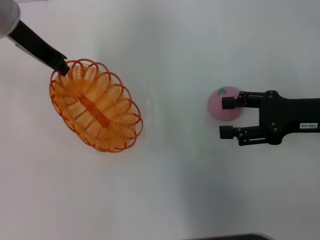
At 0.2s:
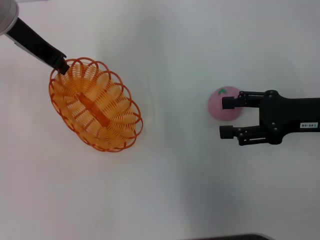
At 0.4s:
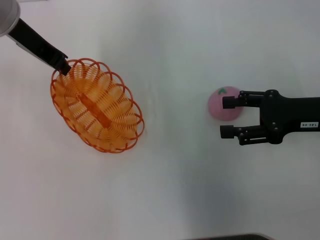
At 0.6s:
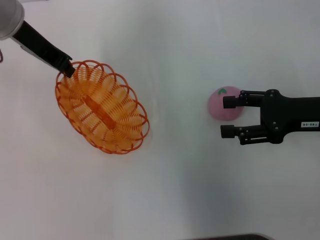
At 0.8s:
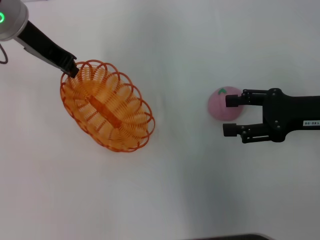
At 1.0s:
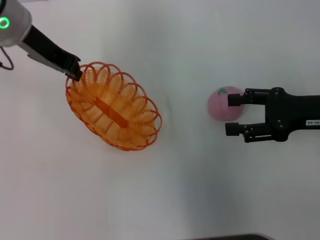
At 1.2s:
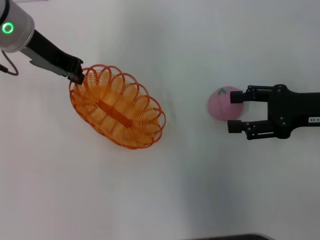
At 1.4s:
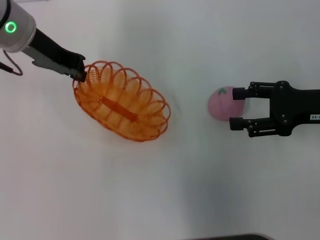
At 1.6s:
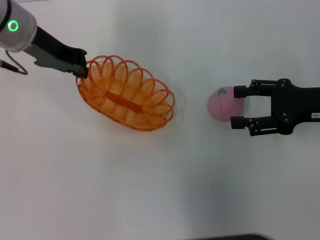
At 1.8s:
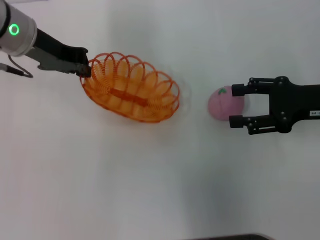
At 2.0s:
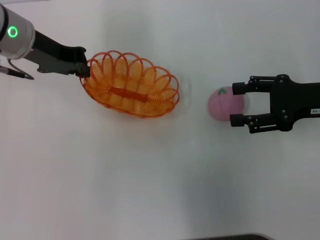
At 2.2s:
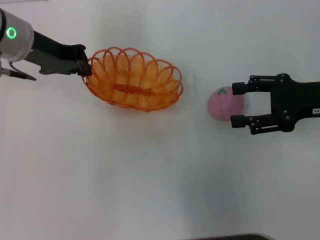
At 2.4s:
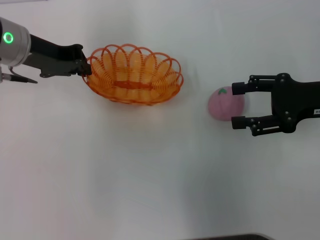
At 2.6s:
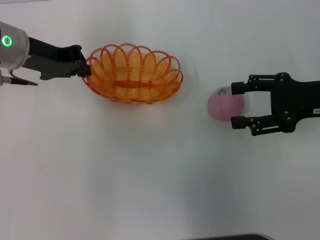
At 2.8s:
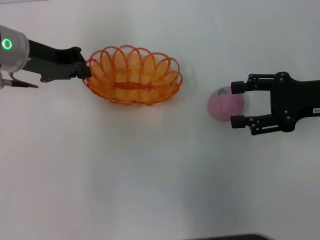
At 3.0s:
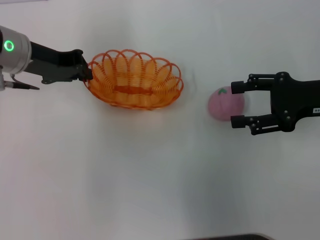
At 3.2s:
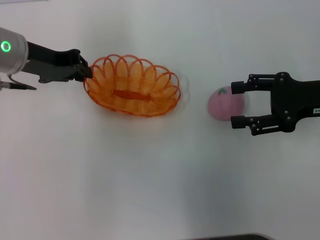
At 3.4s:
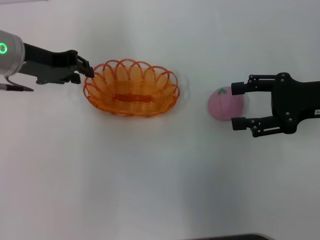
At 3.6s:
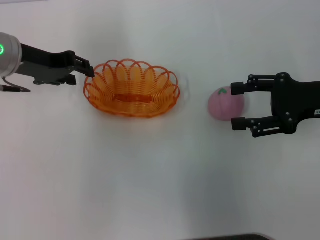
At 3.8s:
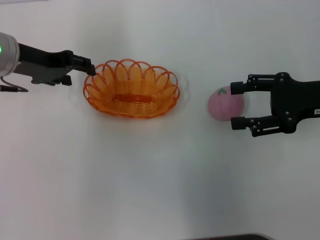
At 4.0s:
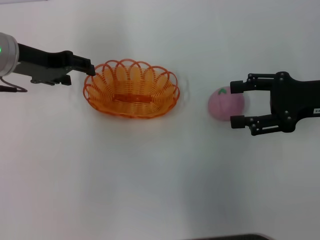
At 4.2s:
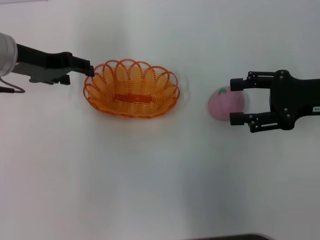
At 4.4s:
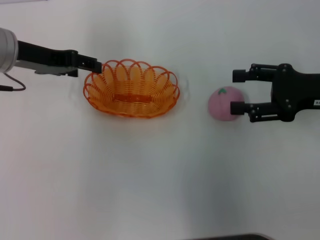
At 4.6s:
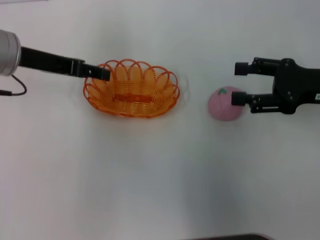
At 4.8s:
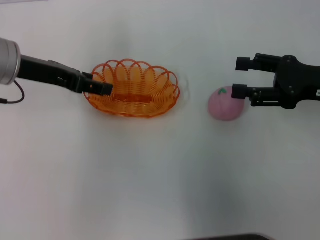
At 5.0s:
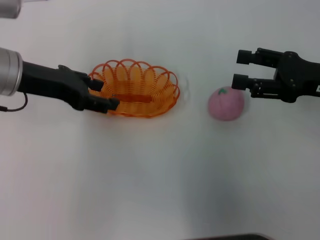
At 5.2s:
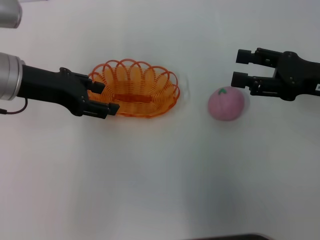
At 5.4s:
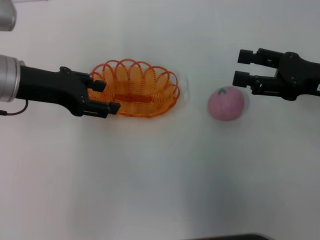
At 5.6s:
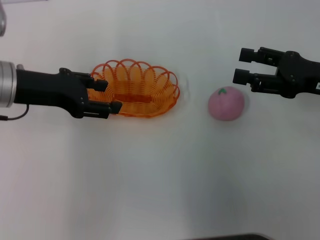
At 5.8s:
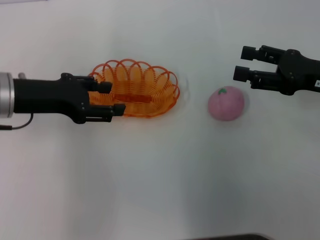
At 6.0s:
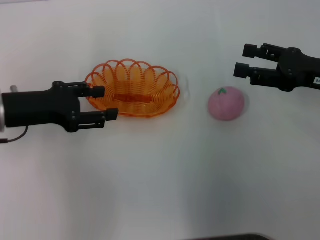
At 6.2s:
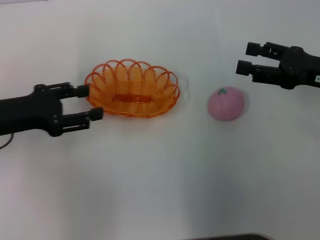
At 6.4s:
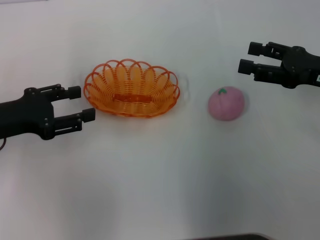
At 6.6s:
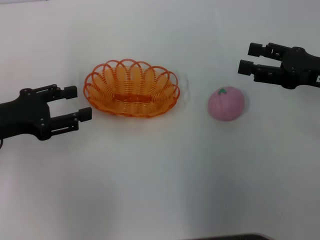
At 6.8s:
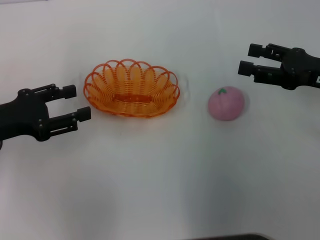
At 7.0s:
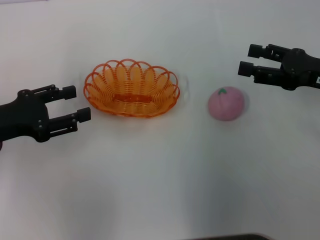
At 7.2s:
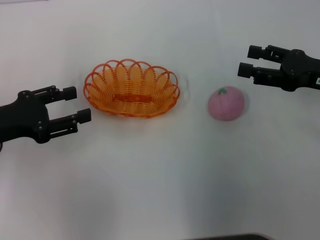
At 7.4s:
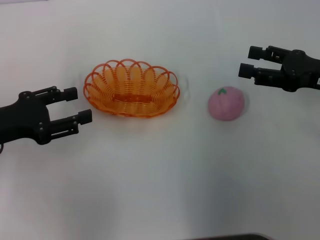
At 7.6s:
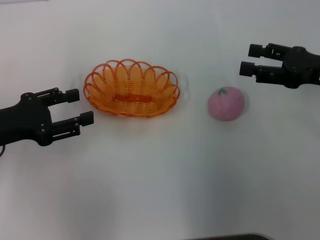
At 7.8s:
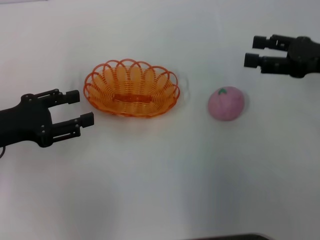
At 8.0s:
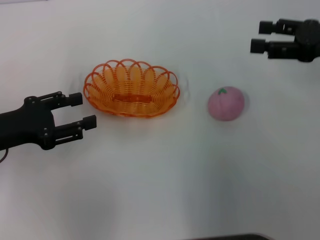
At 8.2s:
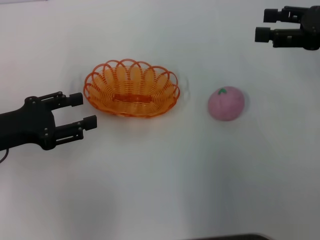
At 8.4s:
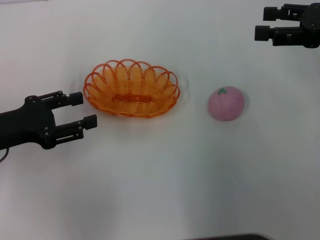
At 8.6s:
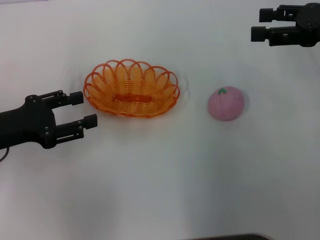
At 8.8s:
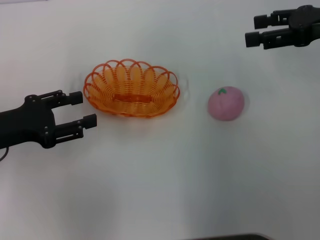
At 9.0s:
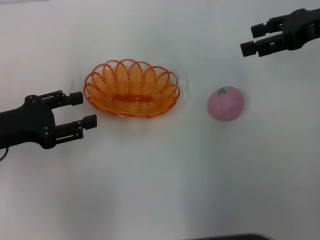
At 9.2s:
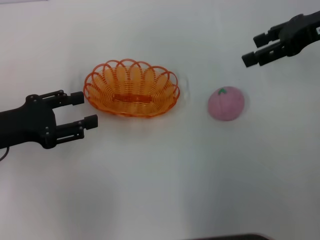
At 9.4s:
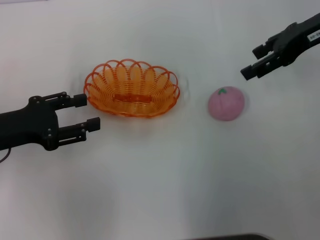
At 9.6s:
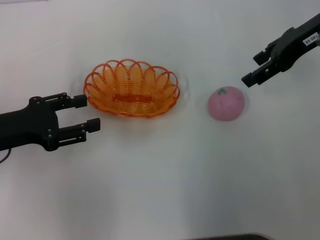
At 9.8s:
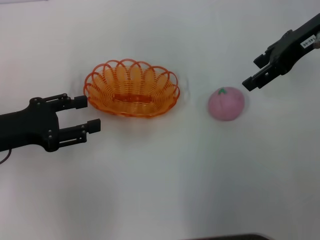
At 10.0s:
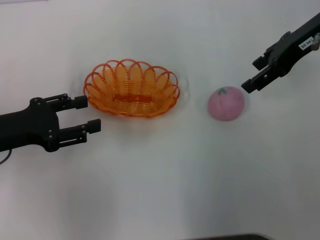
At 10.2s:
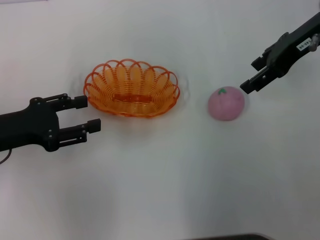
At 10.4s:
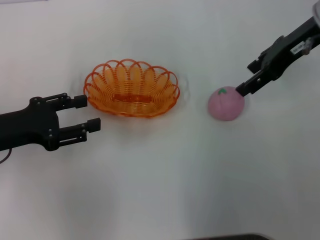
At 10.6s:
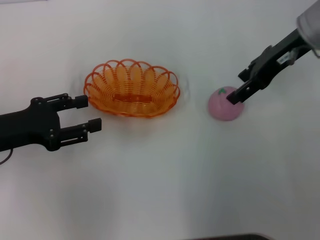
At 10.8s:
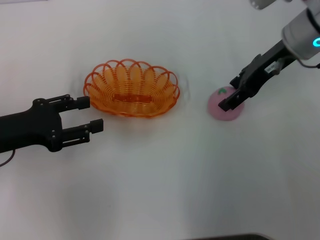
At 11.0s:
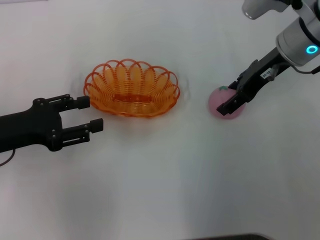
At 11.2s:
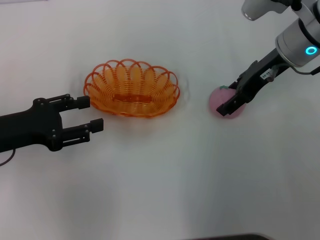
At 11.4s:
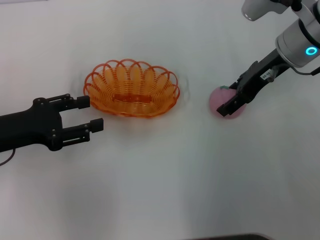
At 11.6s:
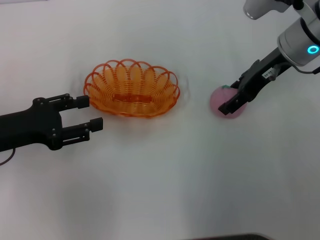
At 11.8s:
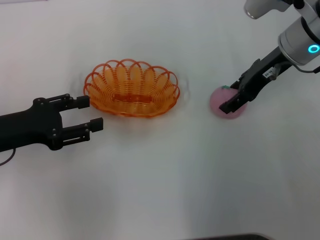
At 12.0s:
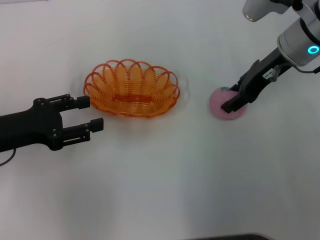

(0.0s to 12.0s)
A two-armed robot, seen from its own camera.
Step, 0.6s - 5.2s: Place the basket in the center of view with the left gripper.
3.0s - 4.4s: The left gripper opens.
4.4s - 6.0s: The left gripper travels backward and downward by some 10 cm.
6.0s - 7.6s: The left gripper moves roughly 5 cm.
7.6s - 9.0s: The right gripper heads upward and forward, covering roughly 10 cm.
9.0s - 10.4s: The right gripper goes approximately 5 cm to the left.
10.4s - 12.0s: The right gripper moves approximately 5 cm.

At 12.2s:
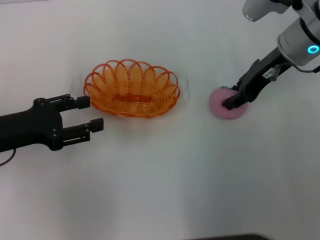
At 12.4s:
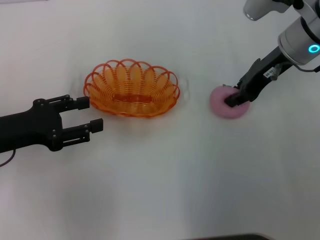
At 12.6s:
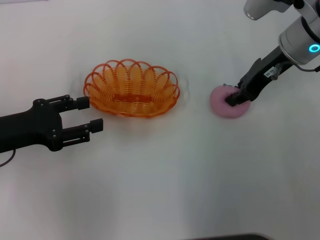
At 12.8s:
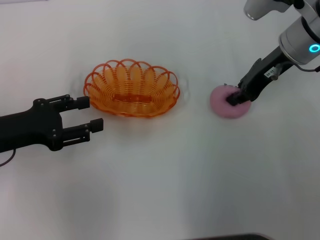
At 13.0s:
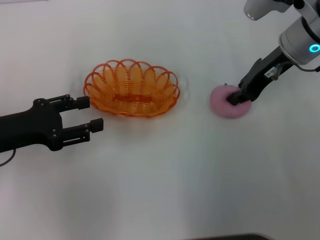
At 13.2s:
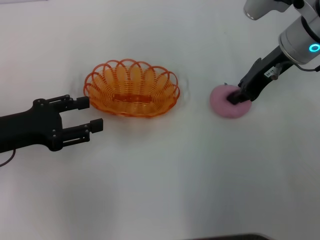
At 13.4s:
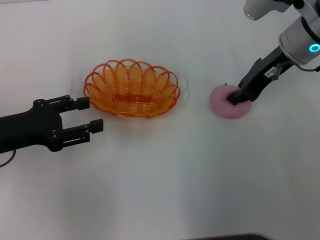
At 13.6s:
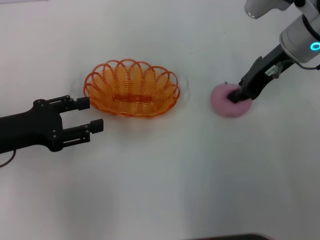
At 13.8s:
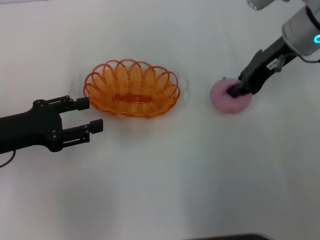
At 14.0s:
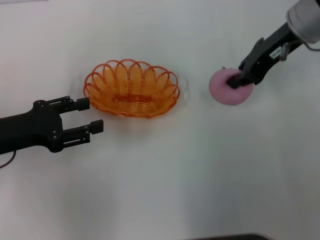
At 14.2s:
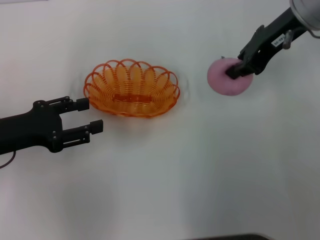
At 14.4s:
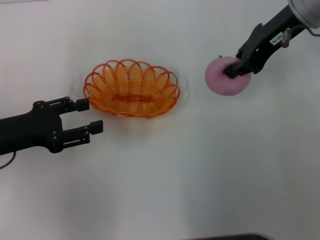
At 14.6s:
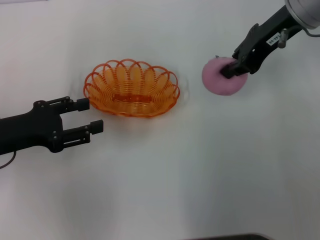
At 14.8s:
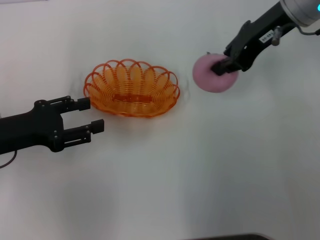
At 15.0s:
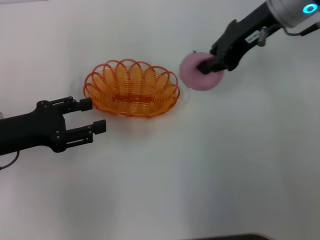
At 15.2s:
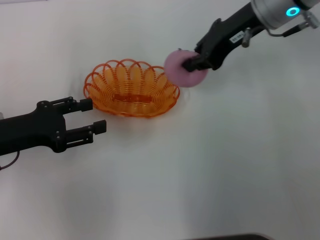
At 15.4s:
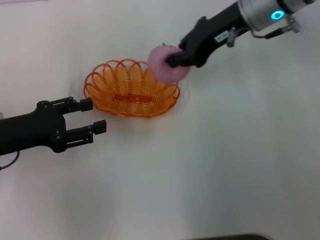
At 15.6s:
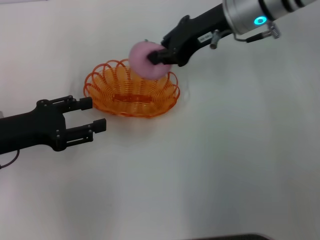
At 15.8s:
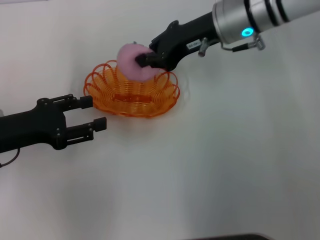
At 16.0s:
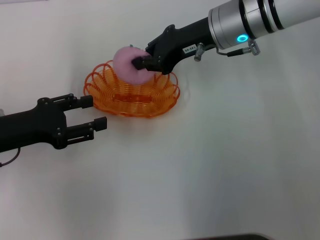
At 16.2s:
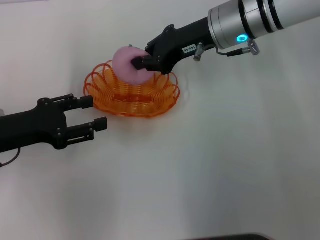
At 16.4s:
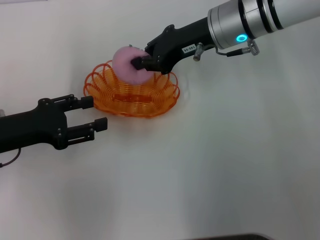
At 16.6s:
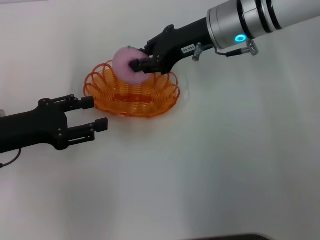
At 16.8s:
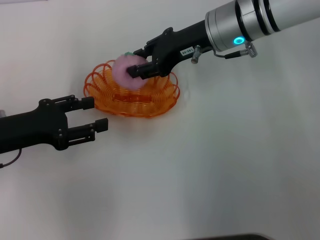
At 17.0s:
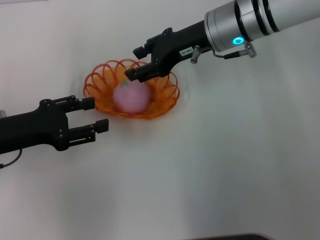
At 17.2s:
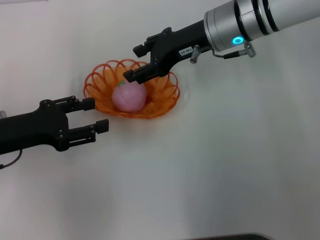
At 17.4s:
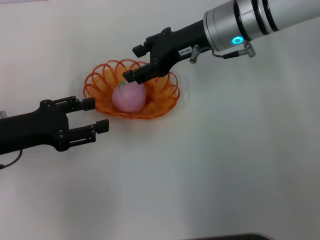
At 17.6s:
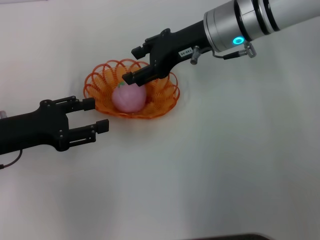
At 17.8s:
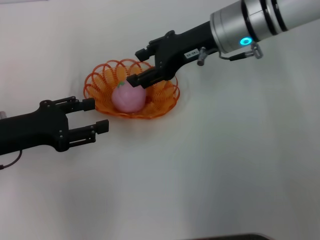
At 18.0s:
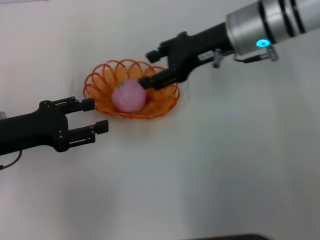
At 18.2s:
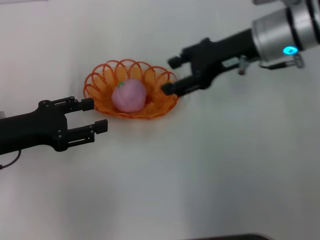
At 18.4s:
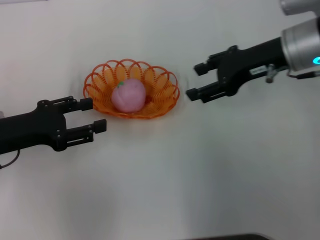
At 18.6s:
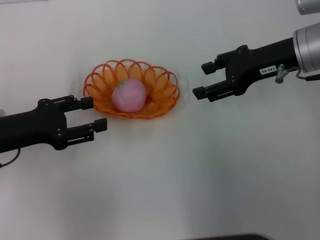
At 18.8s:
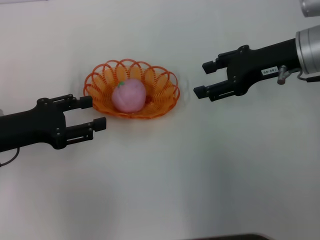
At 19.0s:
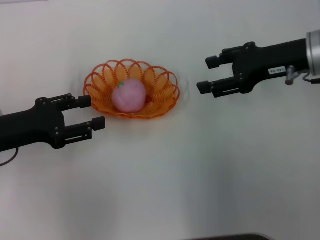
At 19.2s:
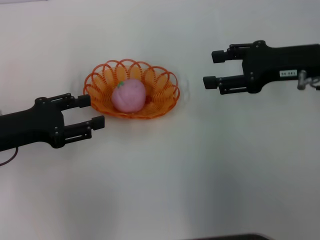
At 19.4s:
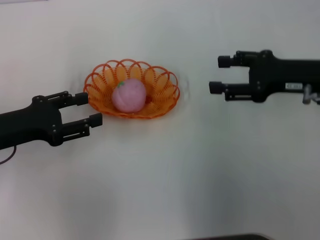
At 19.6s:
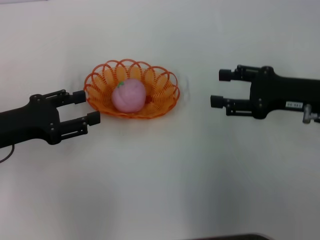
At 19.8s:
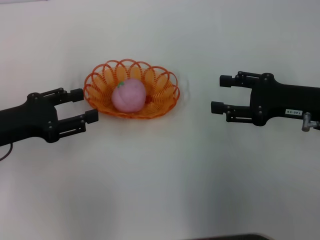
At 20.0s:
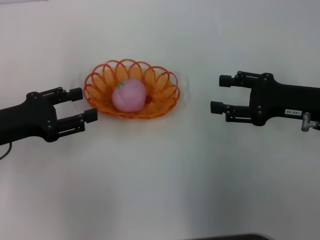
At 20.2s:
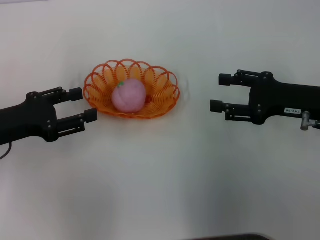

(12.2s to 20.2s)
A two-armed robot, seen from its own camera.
Step, 12.2s - 14.4s: Pick up the peach with the right gripper.
Step, 14.6s - 19.2s: Place the peach into the basket with the right gripper.
12.2s - 13.8s: The right gripper closes its fingers.
13.8s - 15.4s: The right gripper goes roughly 5 cm to the left.
15.4s - 17.0s: The right gripper changes place by roughly 5 cm, and opens up.
17.0s - 18.6s: The right gripper goes approximately 10 cm to the right and backward.
18.6s - 20.2s: The right gripper moves downward and backward, roughly 10 cm.
